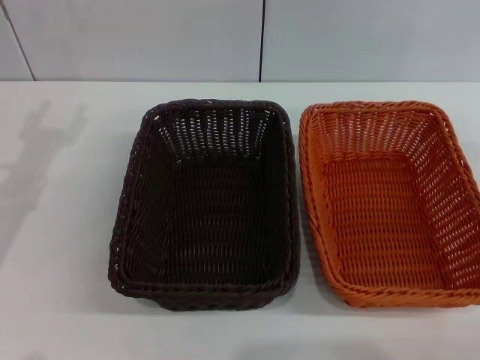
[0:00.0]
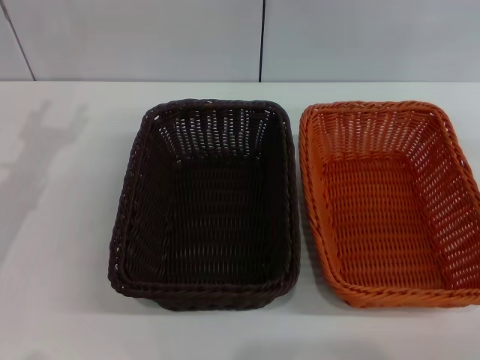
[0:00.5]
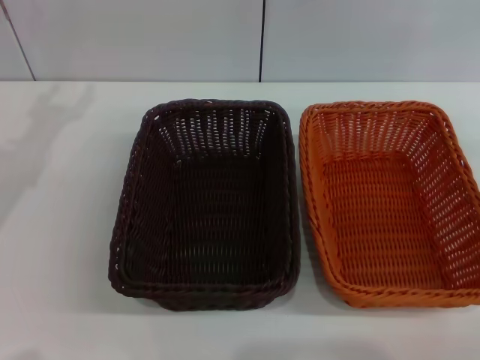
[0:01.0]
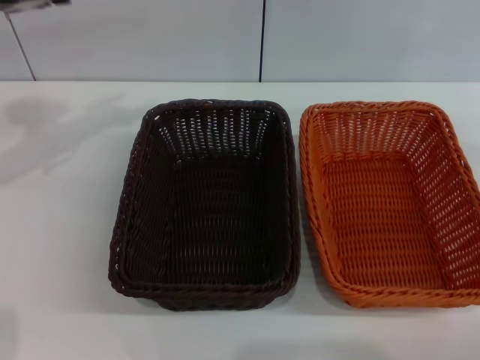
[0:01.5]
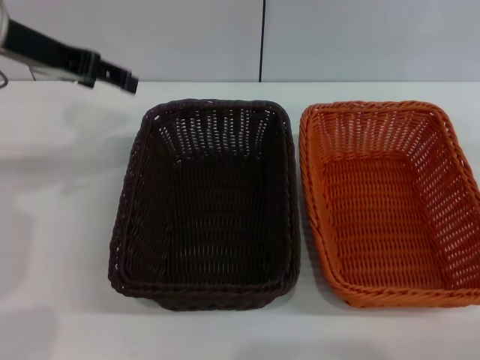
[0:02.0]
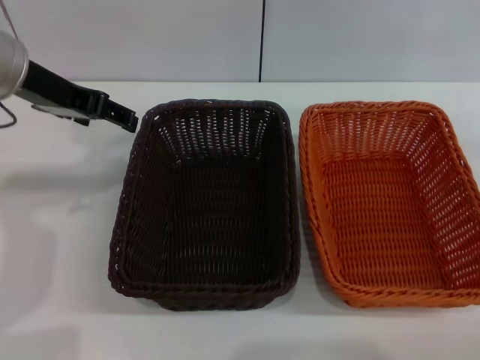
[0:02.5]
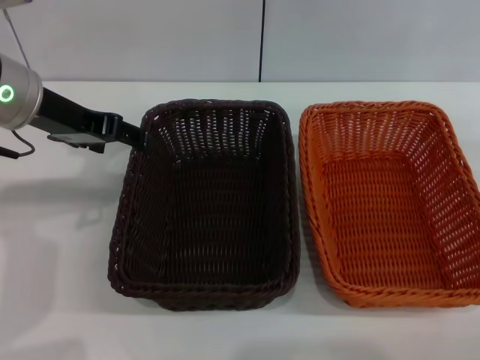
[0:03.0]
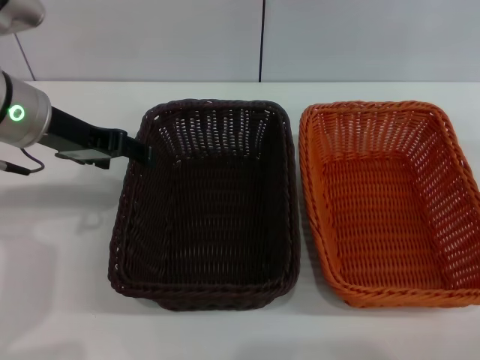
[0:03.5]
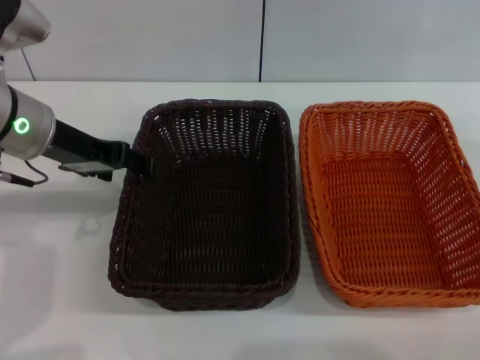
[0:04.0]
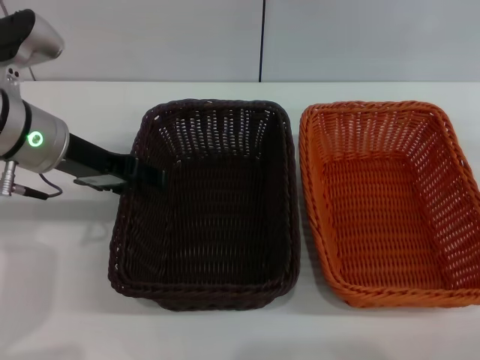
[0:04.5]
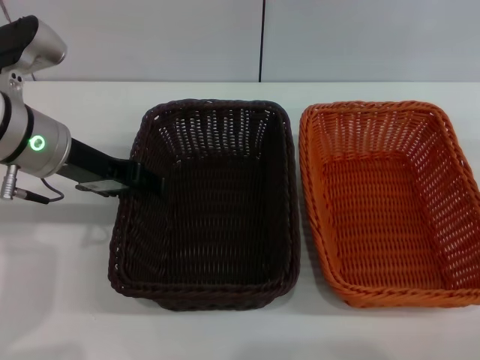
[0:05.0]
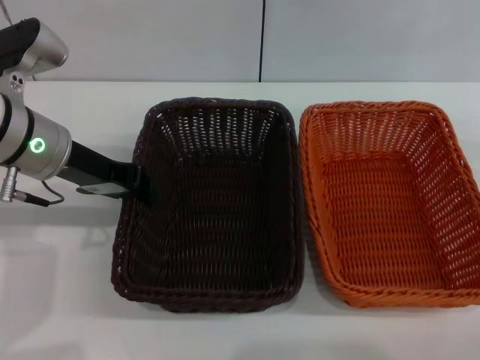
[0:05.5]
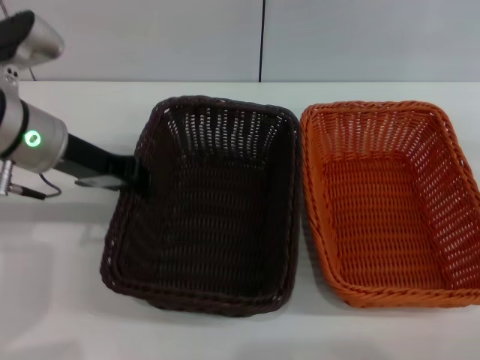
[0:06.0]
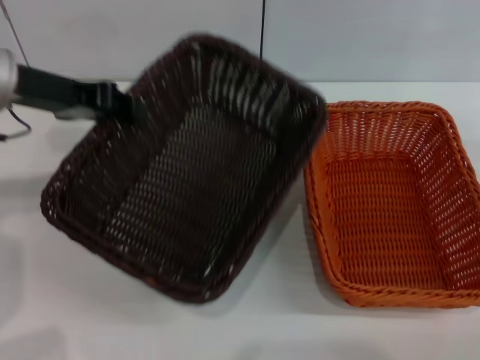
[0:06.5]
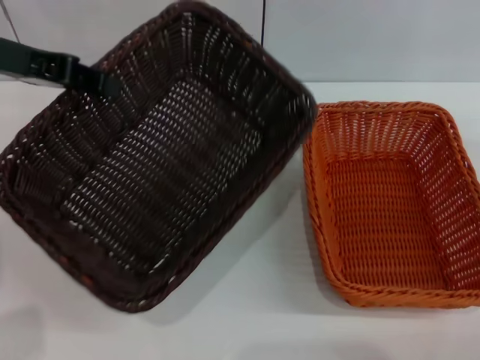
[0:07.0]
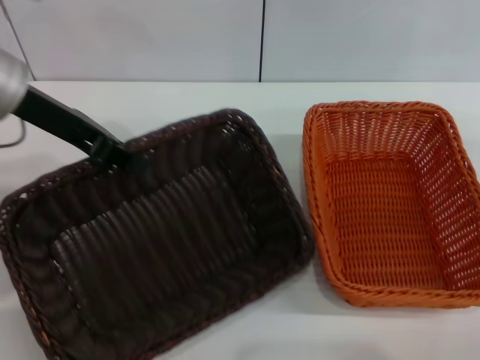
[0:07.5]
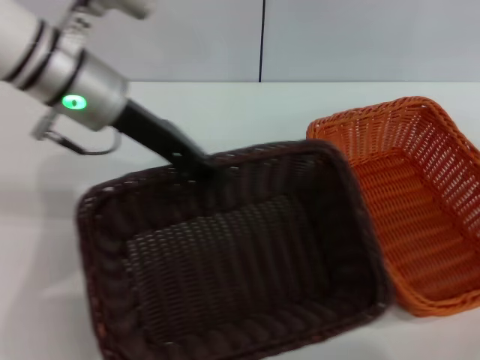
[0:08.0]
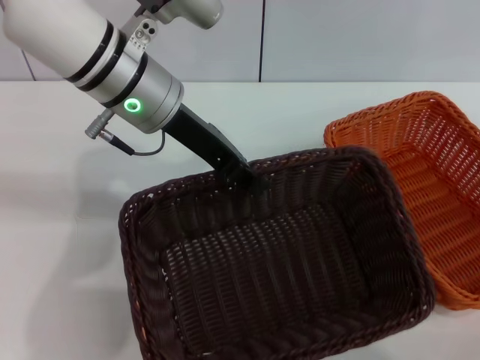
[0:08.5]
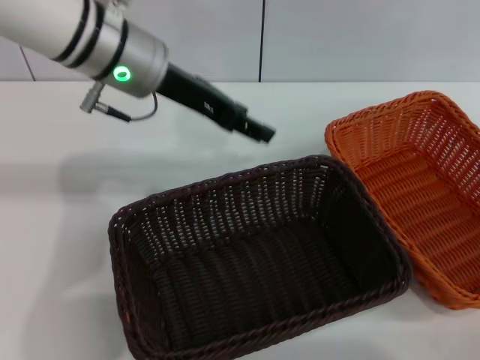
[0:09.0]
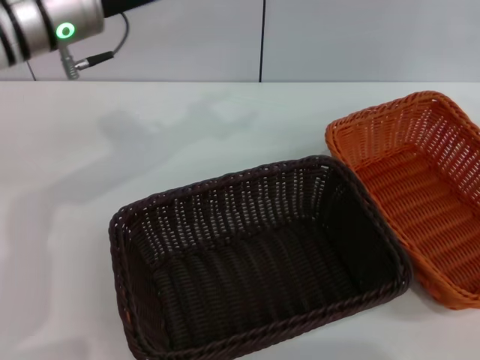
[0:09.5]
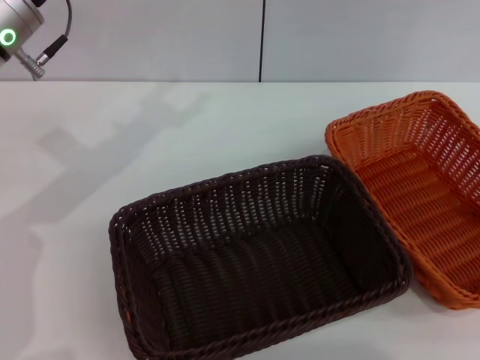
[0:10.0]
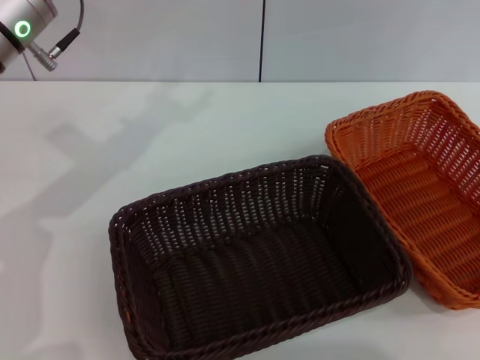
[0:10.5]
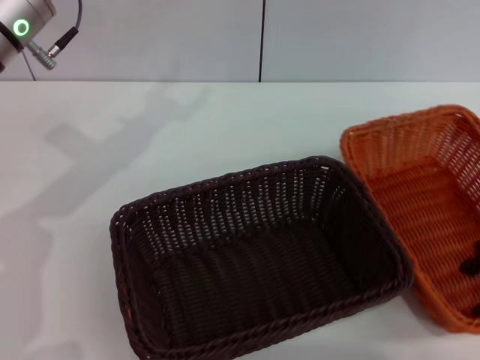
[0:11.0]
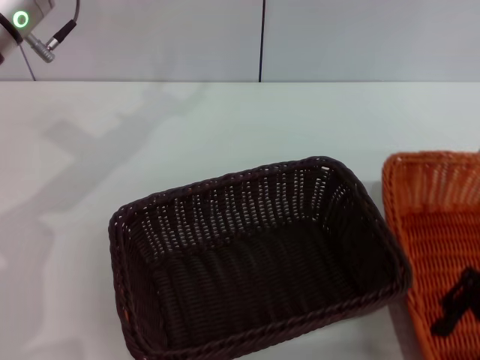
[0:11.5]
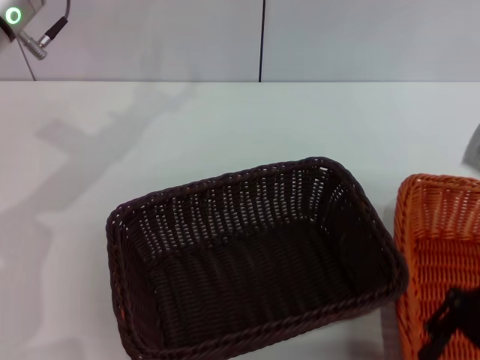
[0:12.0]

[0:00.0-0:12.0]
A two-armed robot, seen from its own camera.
Step, 0:00.0 to 0:05.5: Pick up the dark basket with the left gripper.
Step, 0:06.0 to 0:08.5: Place the dark basket in the center of view with the left gripper.
0:00.0 to 0:02.0: The left gripper is displaced upward, to the right and forward by approximately 15 cm.
0:02.0 to 0:04.0: The left gripper is displaced downward by roughly 10 cm.
0:04.0 to 0:06.0: The left gripper closes its fingers.
0:06.0 to 0:08.0: The left gripper shifts roughly 5 cm to the right.
0:08.0 to 0:10.0: The right gripper moves upward, some 10 cm. Meanwhile the left gripper goes approximately 5 cm to the left, and opens up.
0:10.0 to 0:12.0: The right gripper moves to the left, roughly 15 cm.

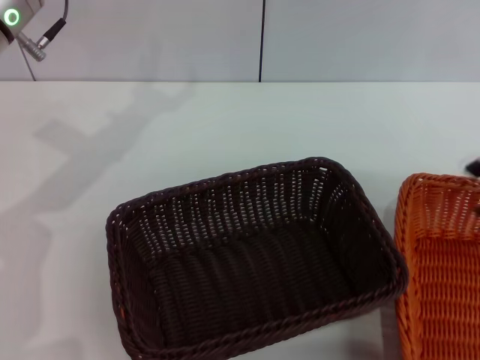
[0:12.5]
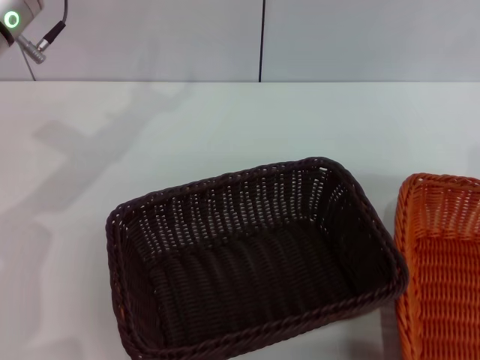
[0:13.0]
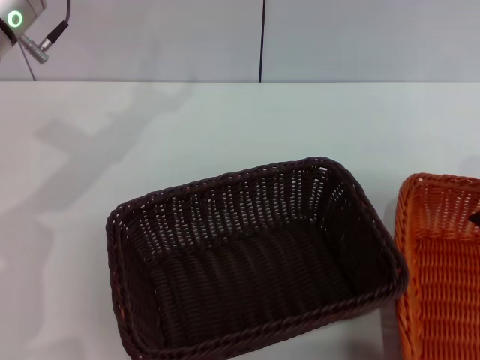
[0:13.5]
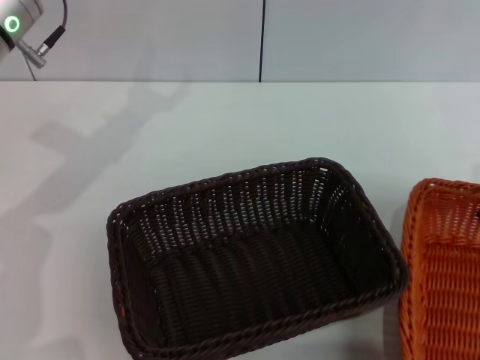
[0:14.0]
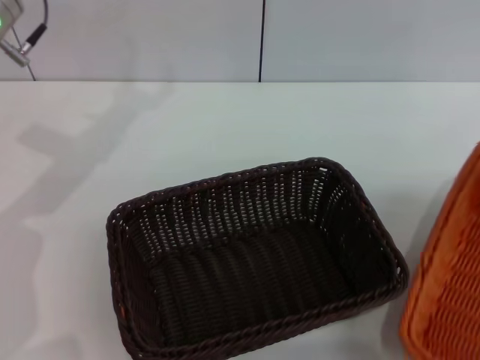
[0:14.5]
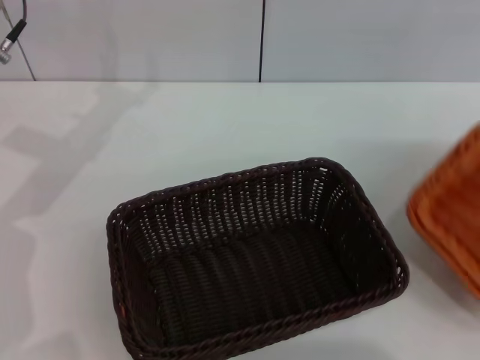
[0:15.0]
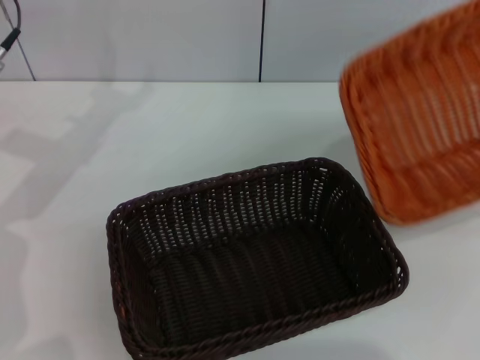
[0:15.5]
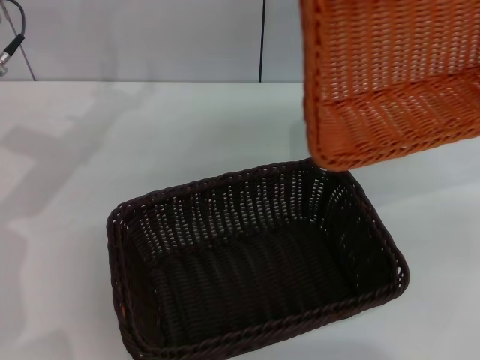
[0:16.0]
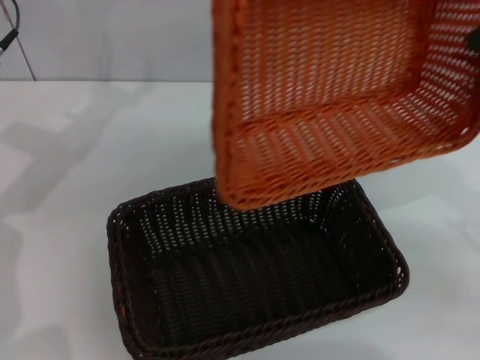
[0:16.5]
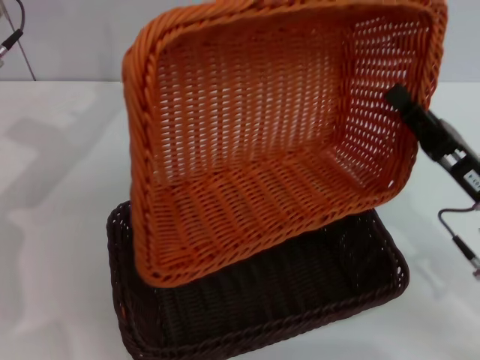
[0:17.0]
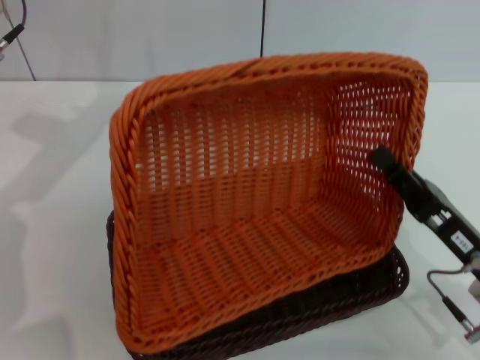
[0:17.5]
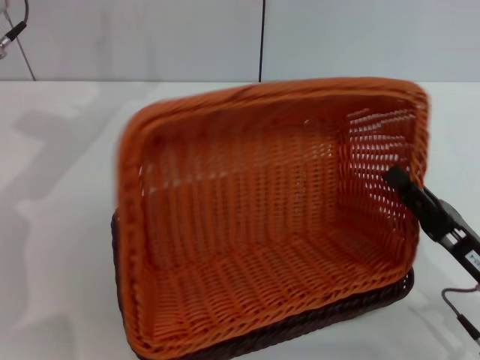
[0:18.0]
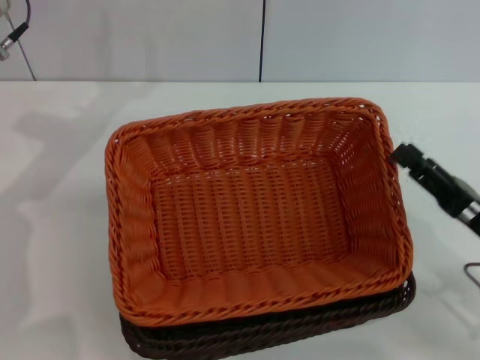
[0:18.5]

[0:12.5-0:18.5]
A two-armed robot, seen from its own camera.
Step, 0:12.5 to 0:14.5: Pick up the light basket with the right gripper.
Step, 0:15.0 to 0:18.0: Place the light basket on the dark basket with the right gripper.
0:12.5 to 0:14.5: The right gripper heads to the right, covering about 10 cm, and closes up.
0:14.5 to 0:16.5: The right gripper goes some 15 cm to the left and downward.
0:16.5 to 0:18.5: The right gripper moves backward and downward, approximately 10 cm, and opens its fingers.

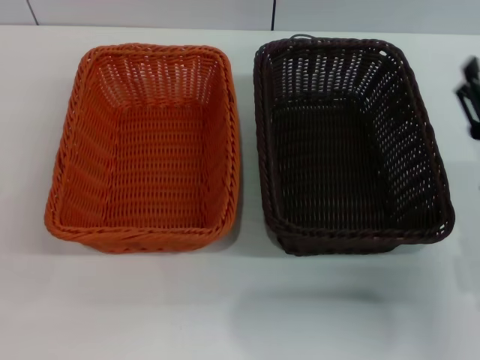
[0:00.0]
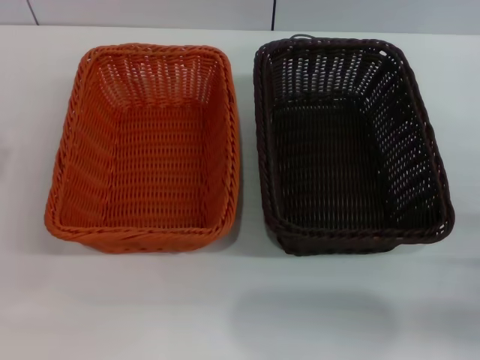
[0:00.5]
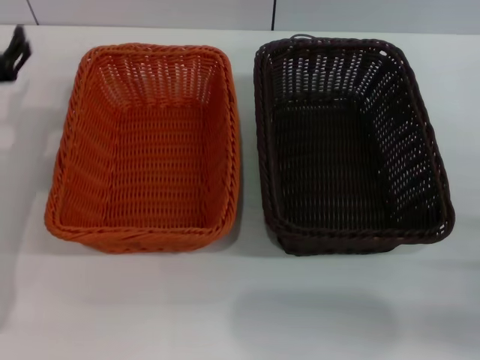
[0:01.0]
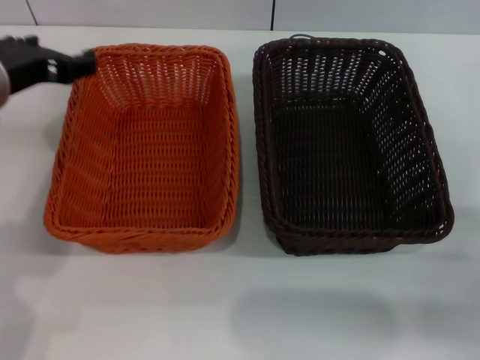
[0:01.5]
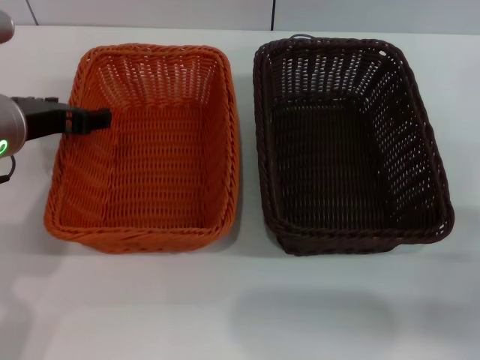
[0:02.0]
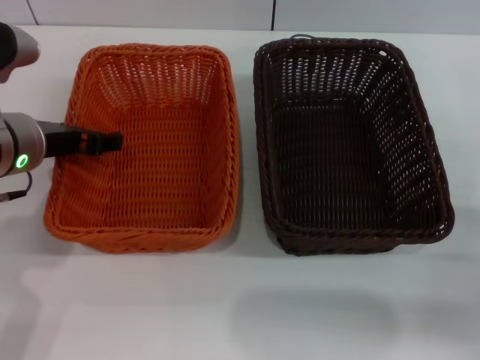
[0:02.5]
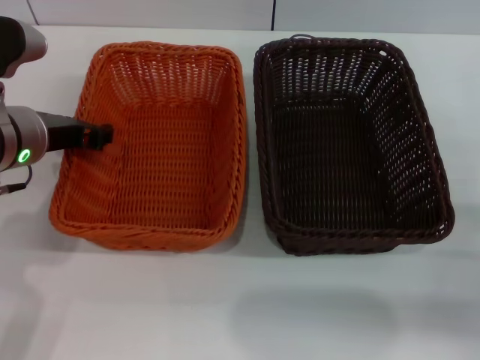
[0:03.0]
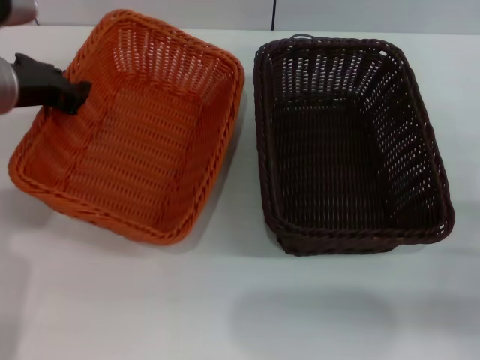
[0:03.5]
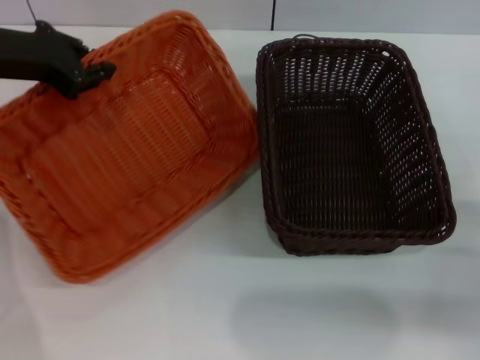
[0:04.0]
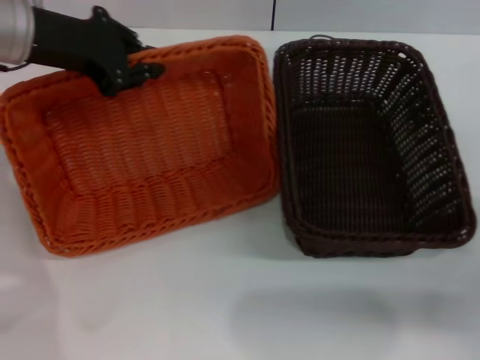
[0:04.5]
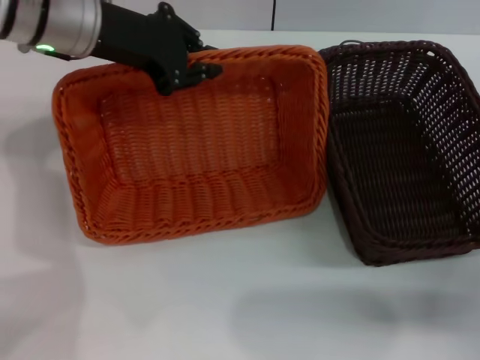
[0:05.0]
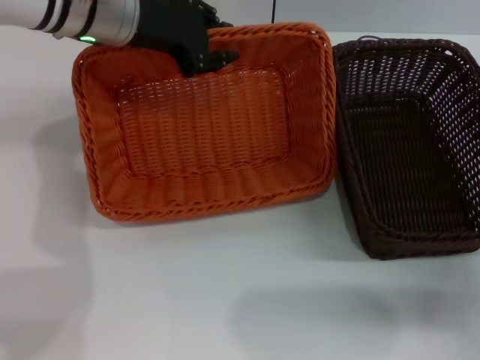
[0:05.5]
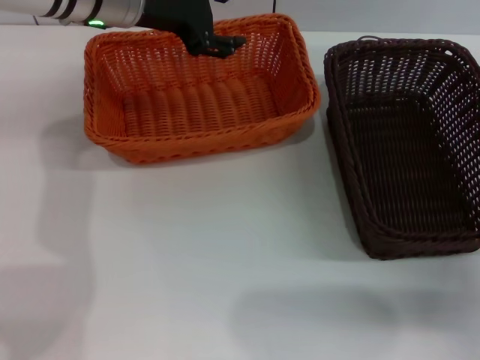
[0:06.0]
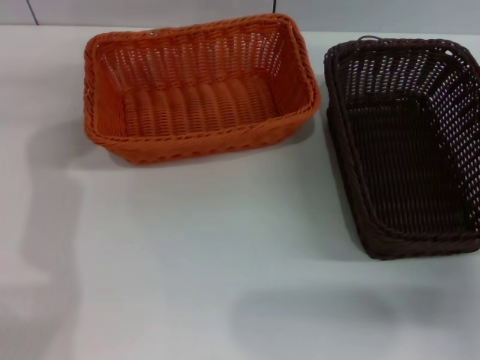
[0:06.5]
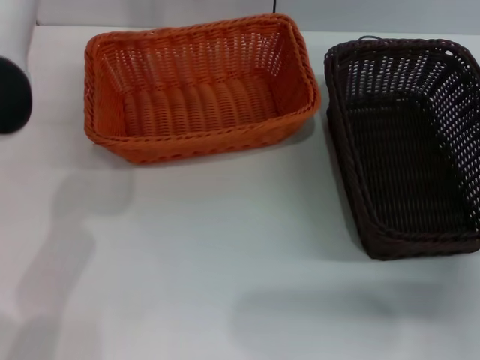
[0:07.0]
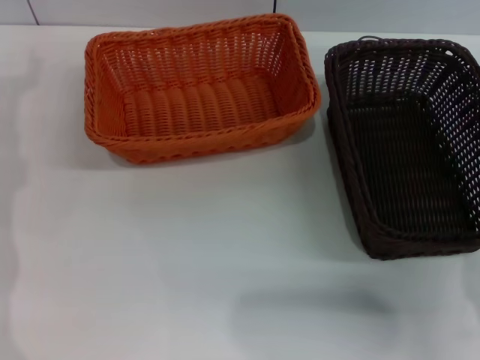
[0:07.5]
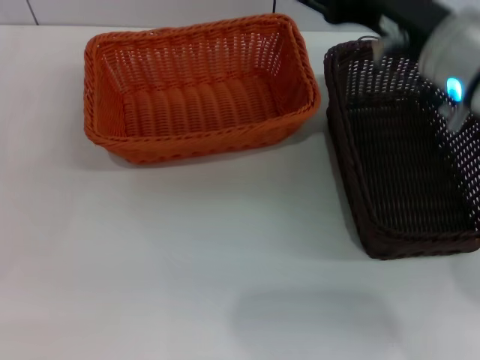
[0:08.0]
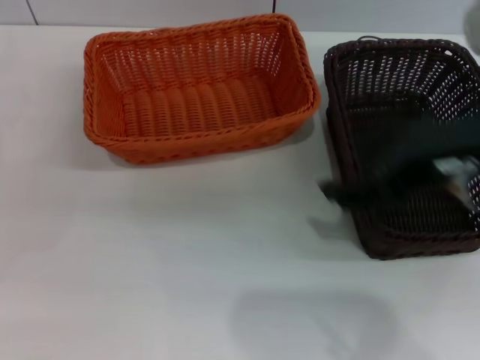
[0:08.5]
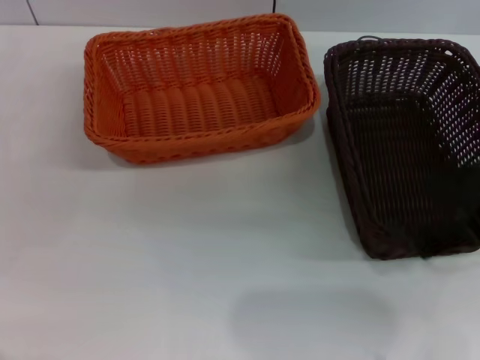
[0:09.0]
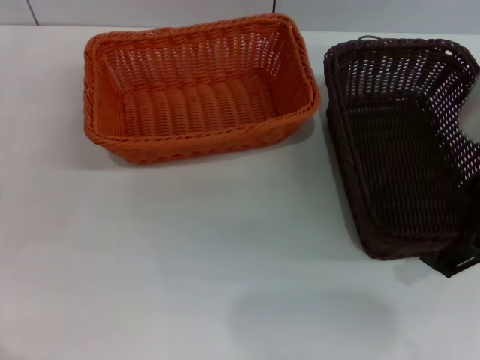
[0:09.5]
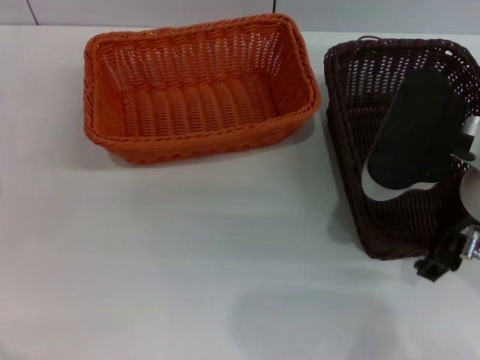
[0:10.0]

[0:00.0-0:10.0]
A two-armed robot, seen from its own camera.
Step, 0:00.0 to 0:03.0: Pick up the light basket with the left gripper.
Step, 0:03.5 to 0:05.5: Place the light basket in the center of view with the left gripper.
0:00.0 to 0:02.0: The right gripper moves about 5 cm. The left gripper goes about 20 cm to the right, forward and upward.
0:02.0 to 0:04.0: The left gripper goes approximately 5 cm forward, and closes up.
0:04.0 to 0:06.0: The left gripper heads to the right and forward, covering about 15 cm, and opens up.
0:06.0 to 0:08.0: The right gripper goes some 25 cm upward, to the left and forward; the left gripper is displaced to the left, backward and downward by some 25 cm, and opens.
